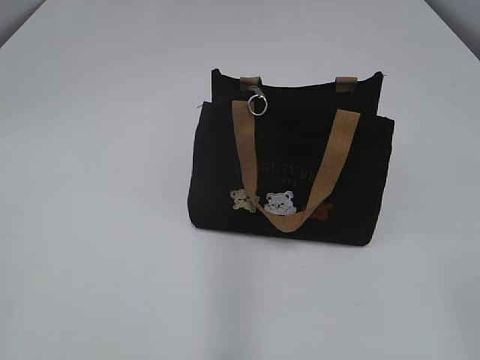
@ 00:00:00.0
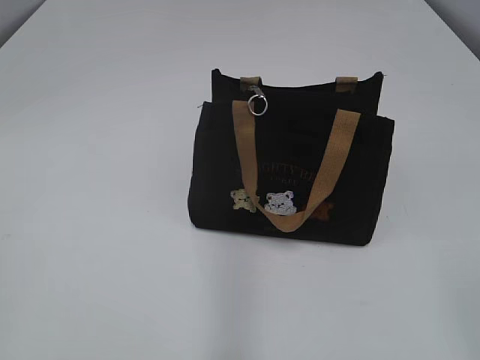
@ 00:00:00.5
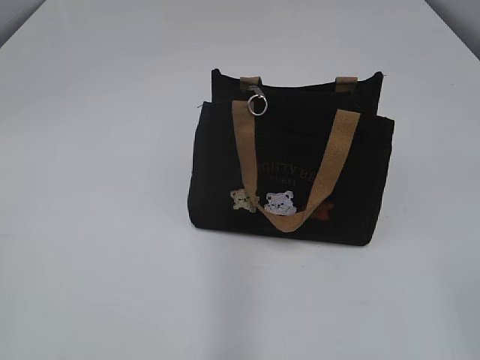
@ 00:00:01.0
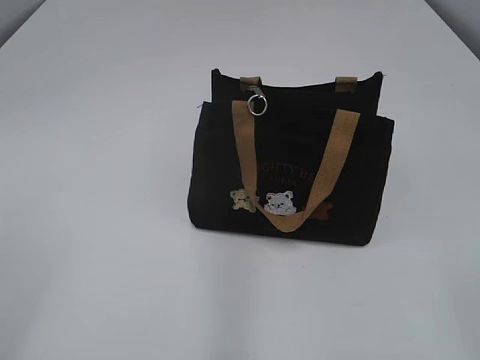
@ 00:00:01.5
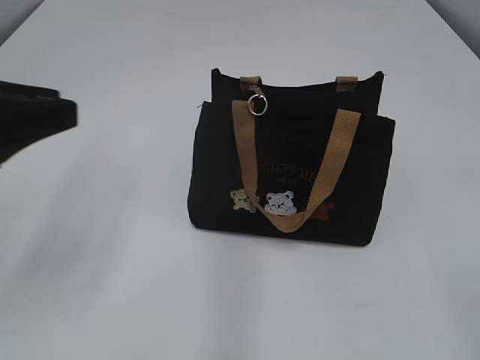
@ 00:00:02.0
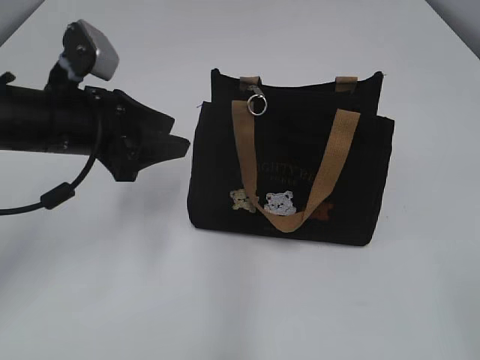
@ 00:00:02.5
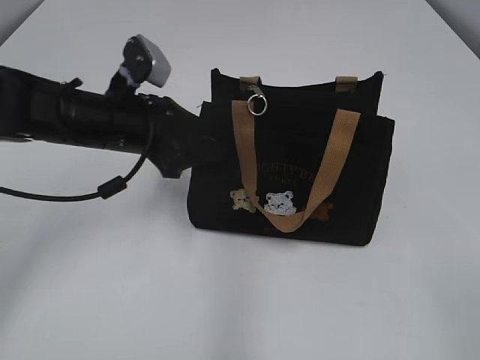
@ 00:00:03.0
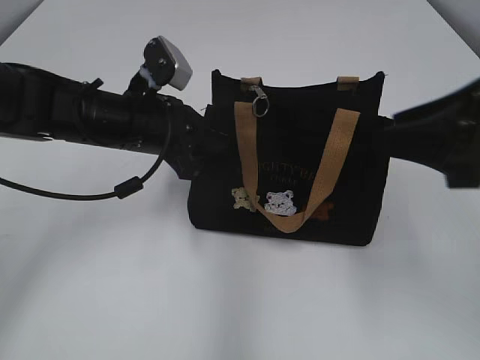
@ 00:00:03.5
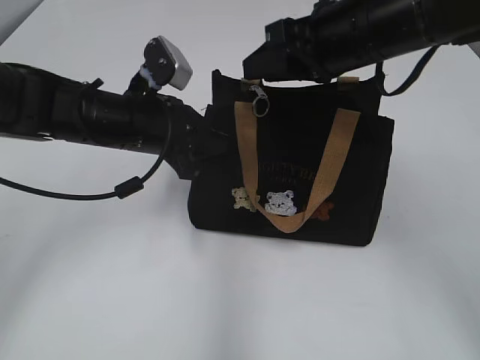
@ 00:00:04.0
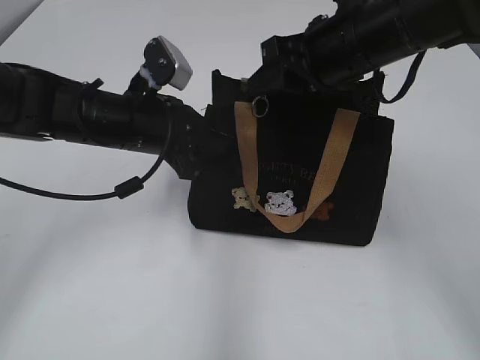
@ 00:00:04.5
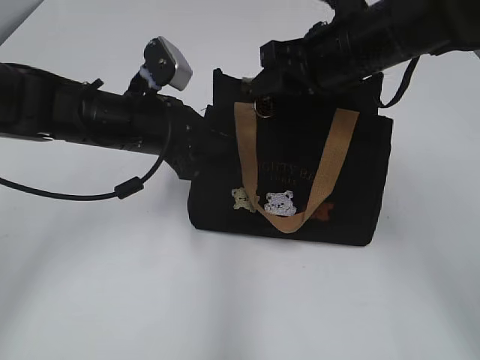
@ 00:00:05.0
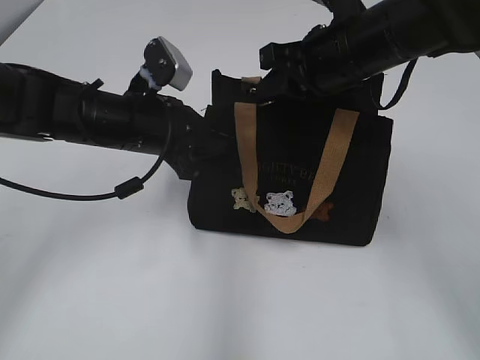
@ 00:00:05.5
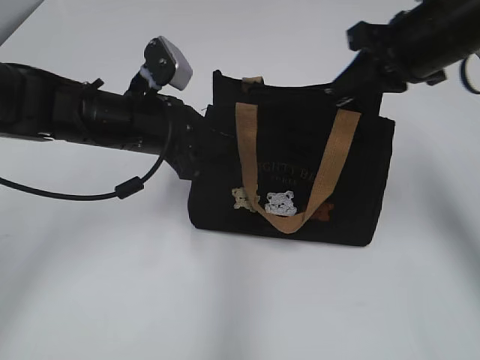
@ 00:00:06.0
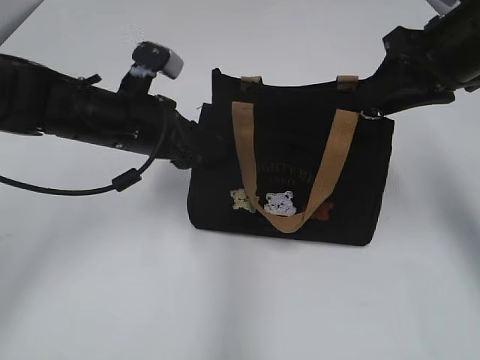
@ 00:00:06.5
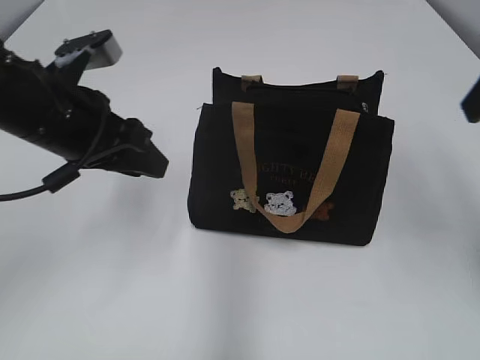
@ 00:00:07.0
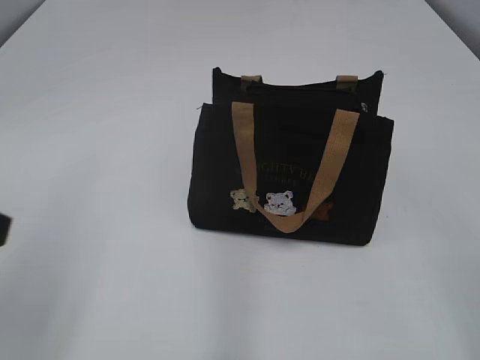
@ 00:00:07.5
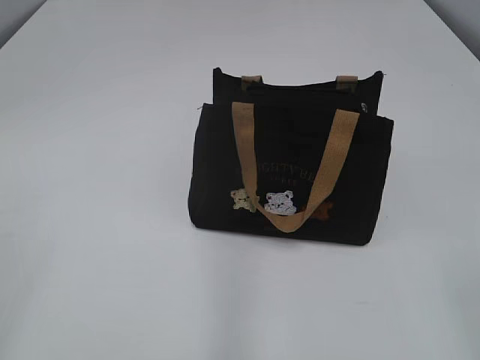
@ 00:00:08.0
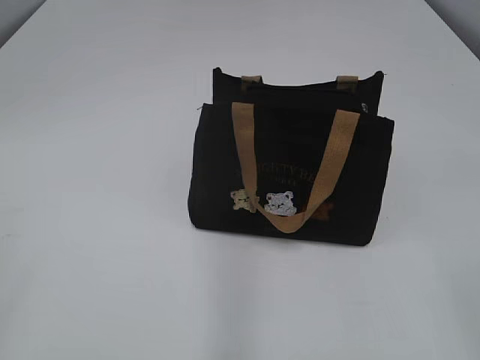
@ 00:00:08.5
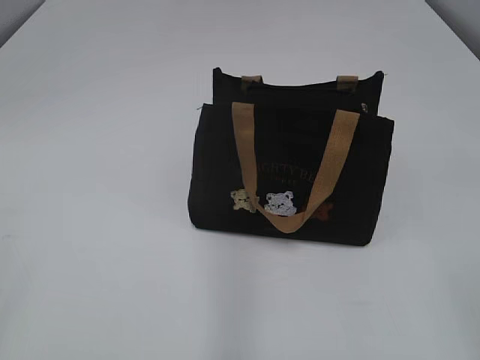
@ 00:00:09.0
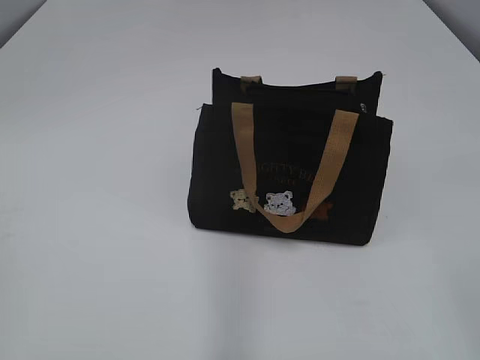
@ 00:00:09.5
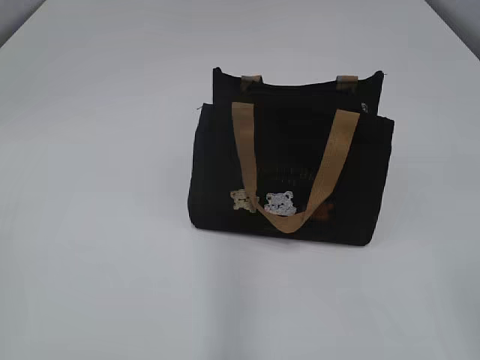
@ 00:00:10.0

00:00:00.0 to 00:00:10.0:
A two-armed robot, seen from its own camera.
Step, 00:00:00.0 to 00:00:06.0: Pull open the zipper with your right hand.
00:00:02.0 to 00:00:04.0: The left gripper shifts approximately 25 cm forward, to the right and downward, and closes its fingers, while the right gripper heads forward and to the left, covering approximately 35 cm.
00:00:04.0 to 00:00:06.0: The right gripper heads to the right, covering roughly 5 cm, and closes.
00:00:06.0 to 00:00:08.0: The left gripper travels backward, to the left and upward by approximately 40 cm, and opens. The right gripper shifts some 35 cm backward, and opens up.

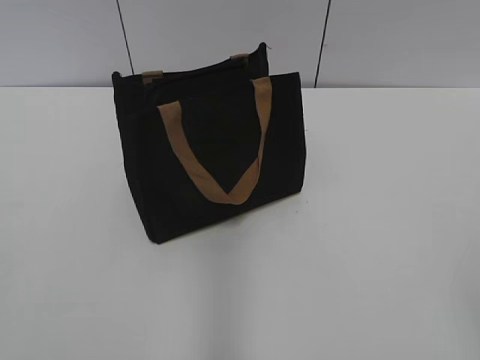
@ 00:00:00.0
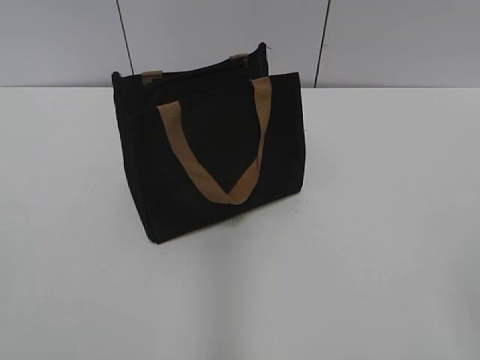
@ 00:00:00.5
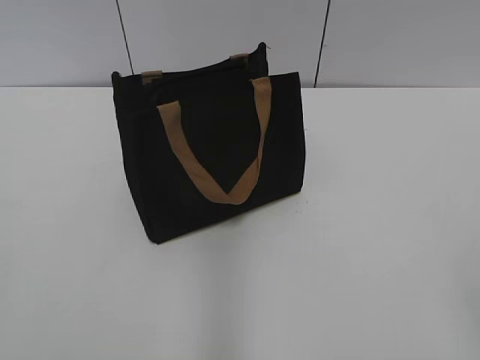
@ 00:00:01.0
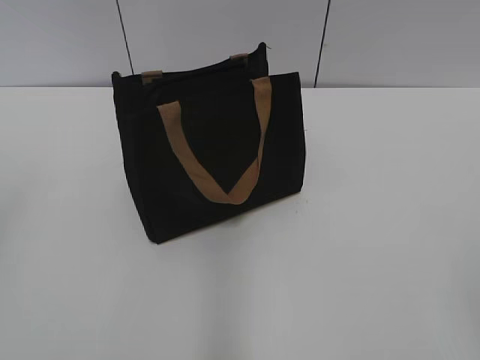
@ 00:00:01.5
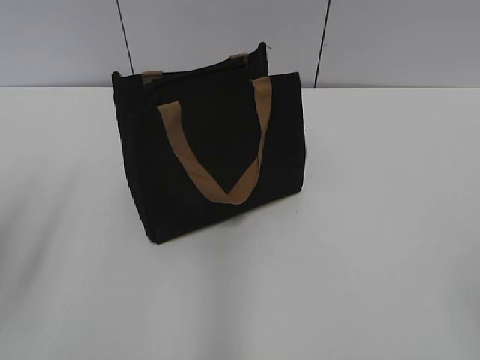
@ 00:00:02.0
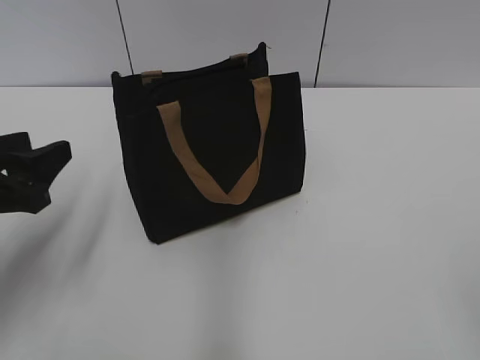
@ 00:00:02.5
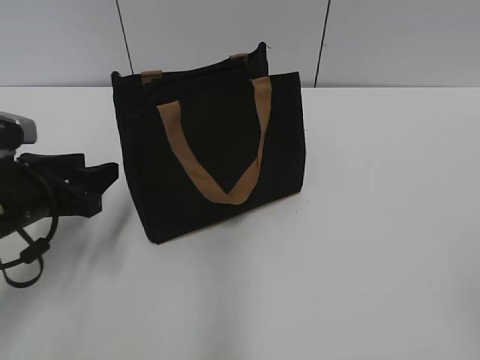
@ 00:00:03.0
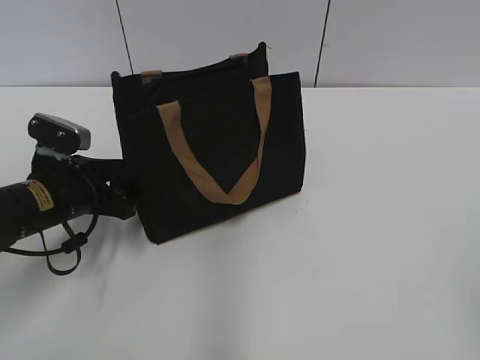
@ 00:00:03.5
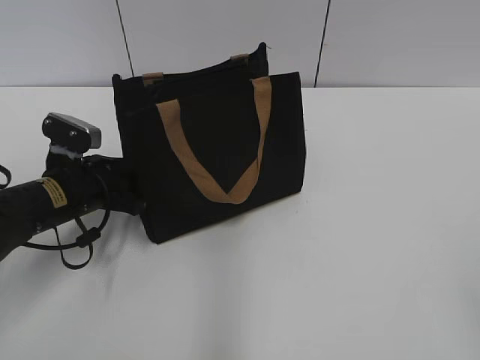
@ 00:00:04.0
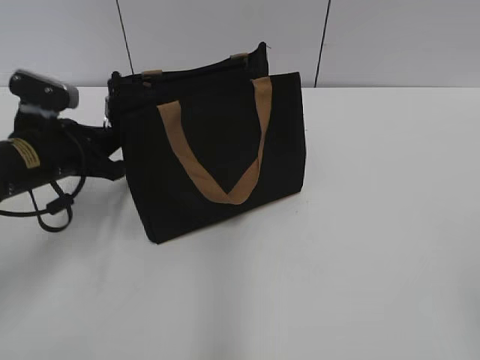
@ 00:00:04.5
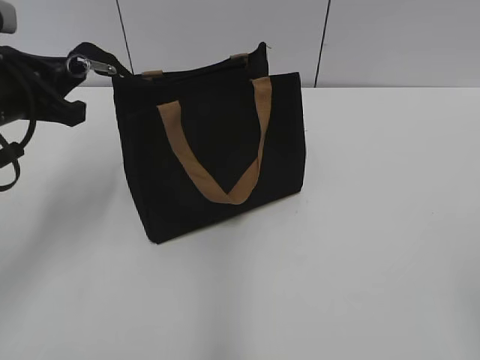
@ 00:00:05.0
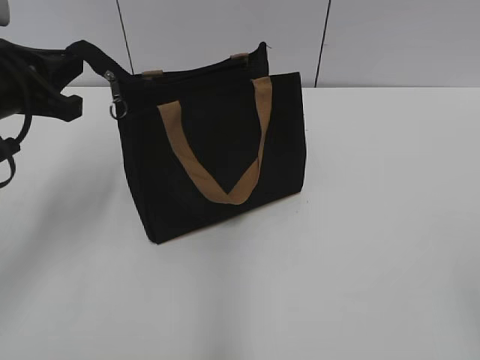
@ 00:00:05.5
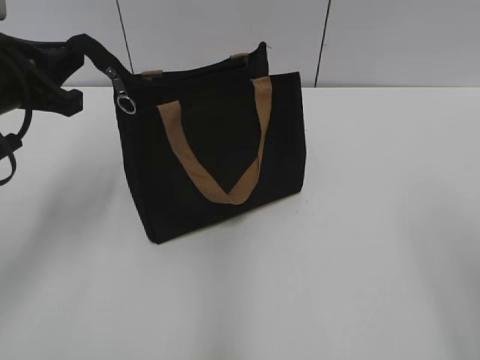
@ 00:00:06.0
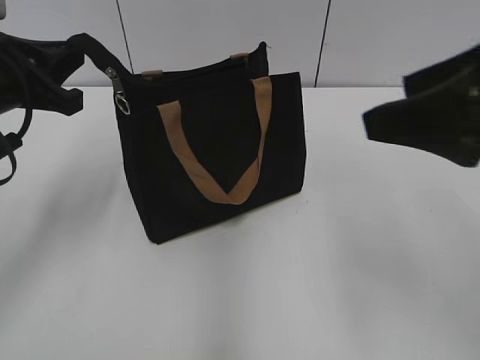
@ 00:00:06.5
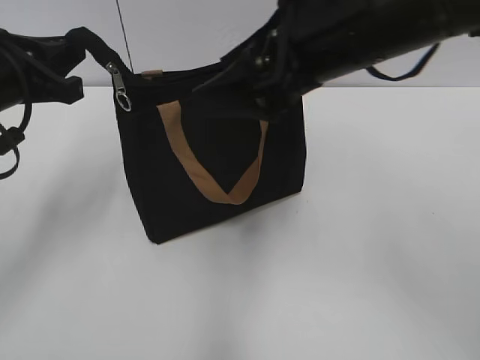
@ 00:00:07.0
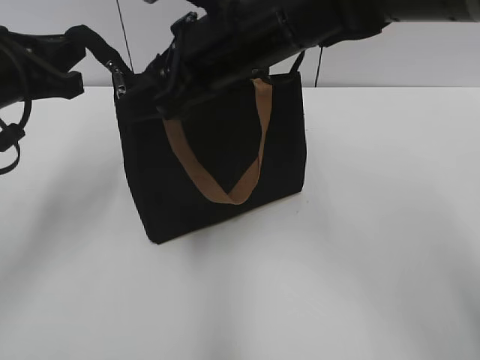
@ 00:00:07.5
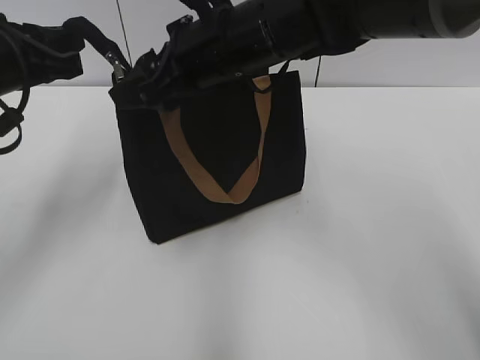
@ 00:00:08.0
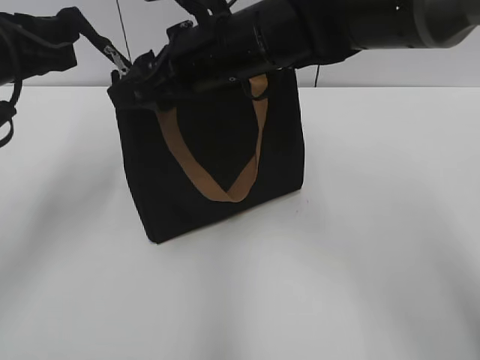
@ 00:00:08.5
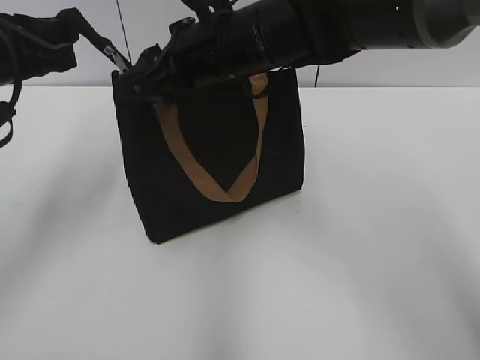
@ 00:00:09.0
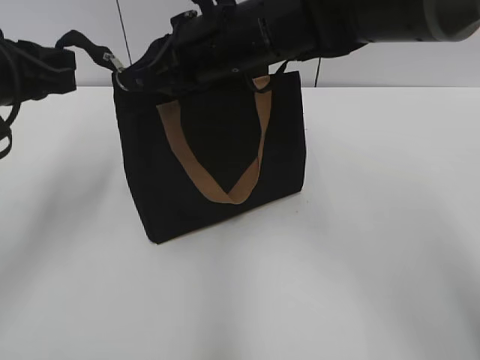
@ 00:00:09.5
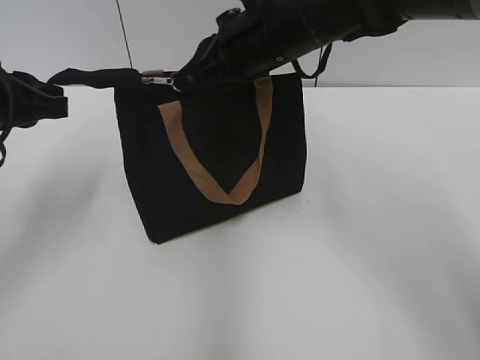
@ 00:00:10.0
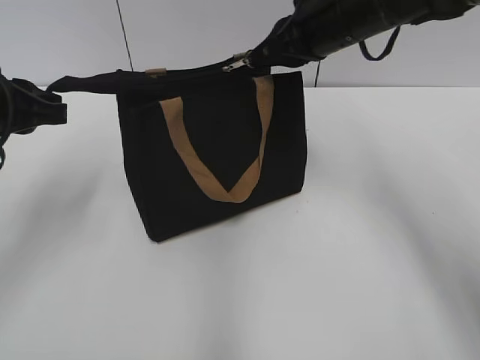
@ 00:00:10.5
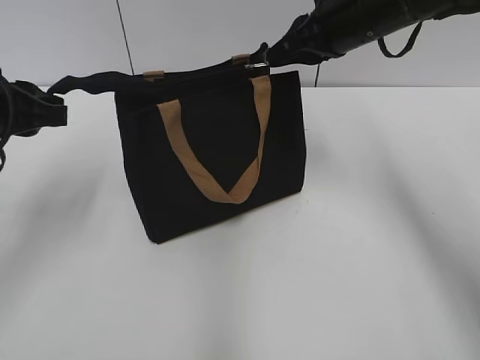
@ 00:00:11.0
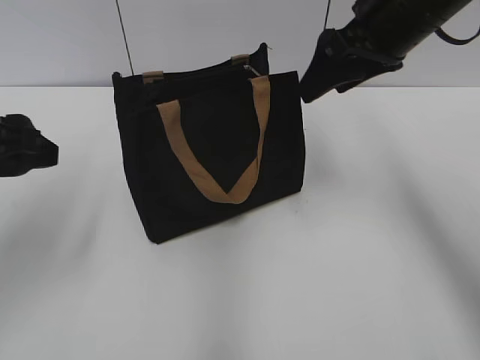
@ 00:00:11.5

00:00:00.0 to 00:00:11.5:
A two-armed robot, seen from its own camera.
Step, 00:00:00.0 to 00:00:11.0: Grab the zipper with your left hand.
00:00:02.0 to 00:00:04.0: The left gripper travels downward, forward and to the right by approximately 25 cm.
00:00:04.0 to 00:00:06.0: The left gripper heads upward, covering about 15 cm, and closes up.
00:00:06.0 to 00:00:07.5: The right gripper moves forward and to the left, roughly 40 cm.
00:00:07.5 to 00:00:09.5: The right gripper closes.
00:00:09.5 to 00:00:11.5: The right gripper travels to the right by approximately 15 cm, and opens up; the left gripper changes place by roughly 5 cm, and opens.

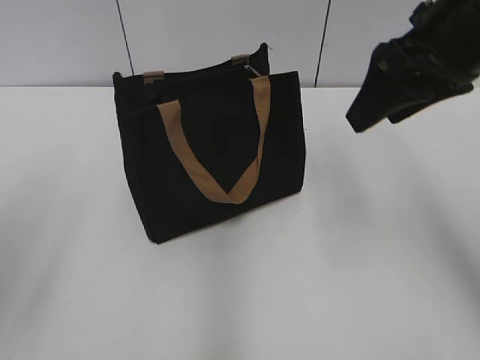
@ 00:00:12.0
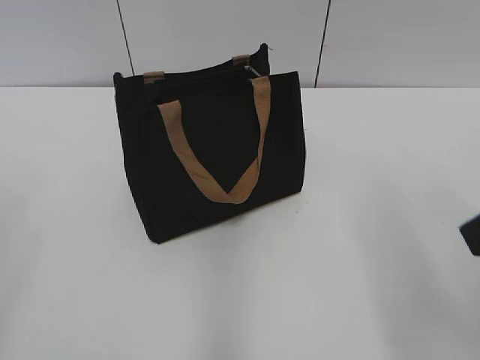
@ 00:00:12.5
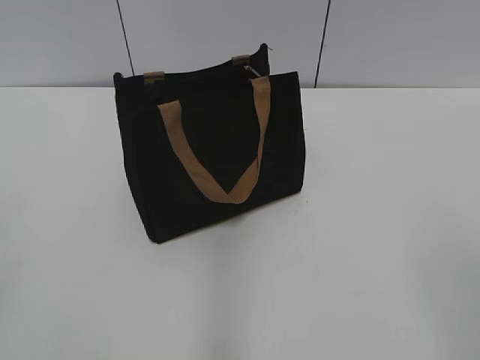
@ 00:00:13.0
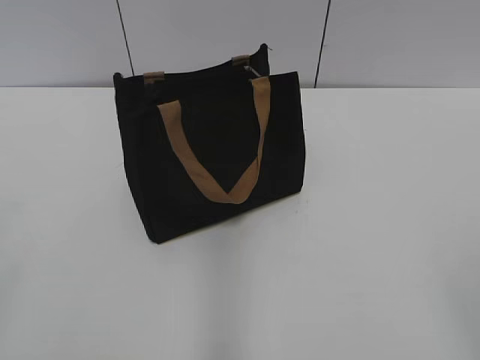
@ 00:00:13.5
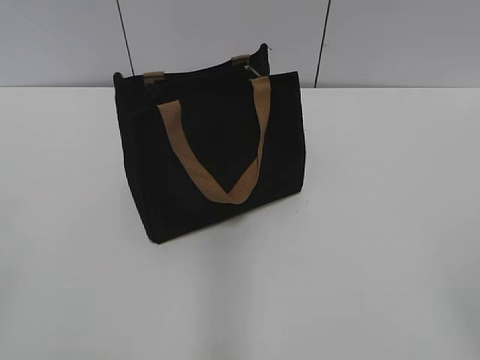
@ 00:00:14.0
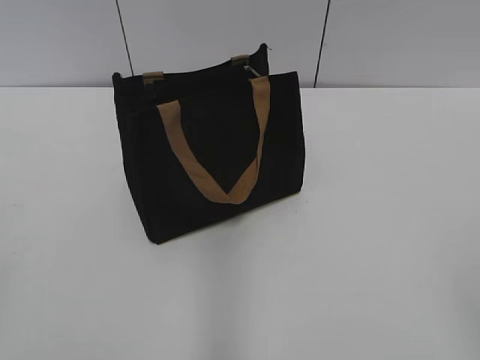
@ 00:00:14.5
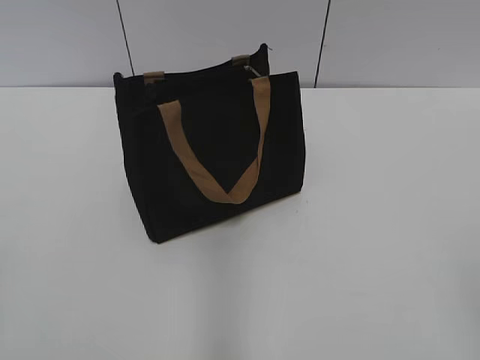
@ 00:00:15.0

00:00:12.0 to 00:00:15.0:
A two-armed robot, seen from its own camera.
00:00:12.0 to 00:00:13.5: The right gripper is displaced backward by roughly 30 cm.
